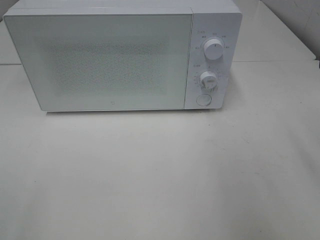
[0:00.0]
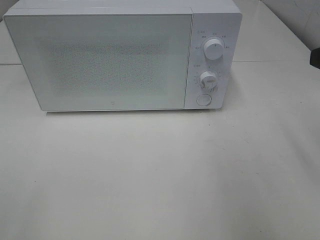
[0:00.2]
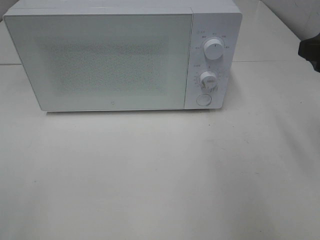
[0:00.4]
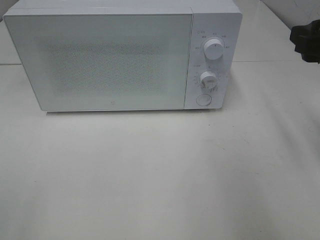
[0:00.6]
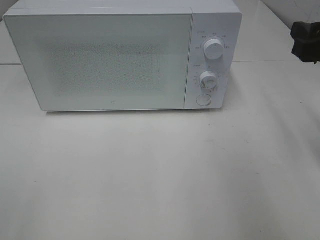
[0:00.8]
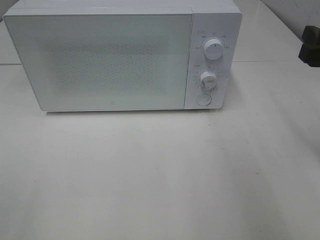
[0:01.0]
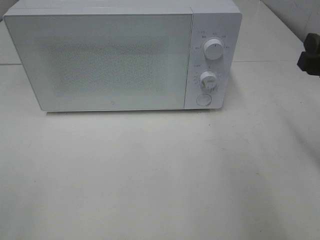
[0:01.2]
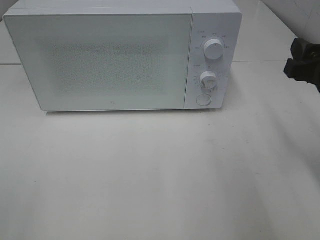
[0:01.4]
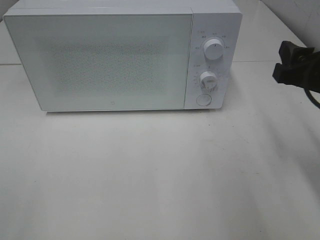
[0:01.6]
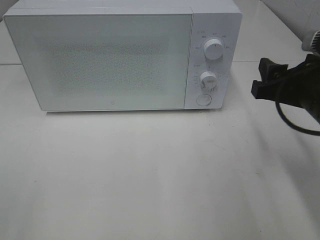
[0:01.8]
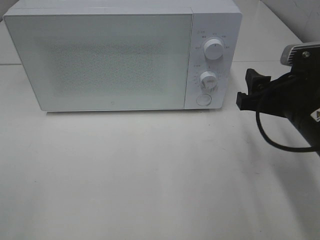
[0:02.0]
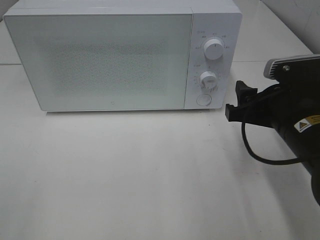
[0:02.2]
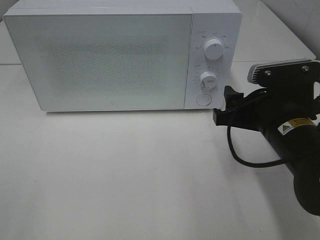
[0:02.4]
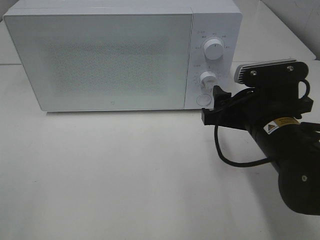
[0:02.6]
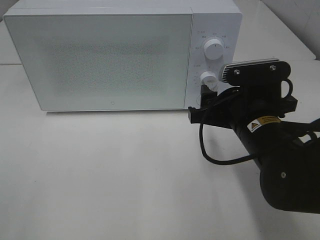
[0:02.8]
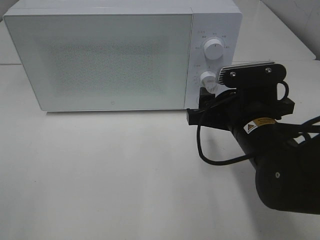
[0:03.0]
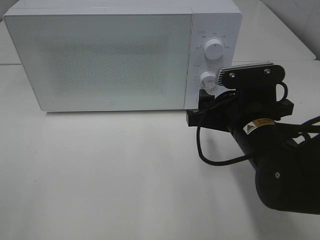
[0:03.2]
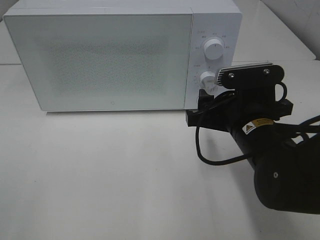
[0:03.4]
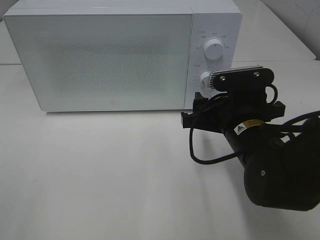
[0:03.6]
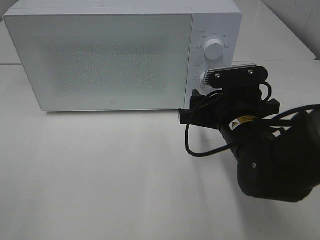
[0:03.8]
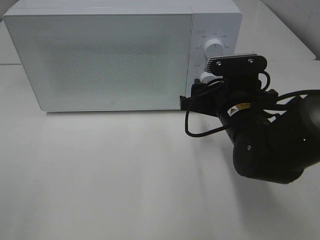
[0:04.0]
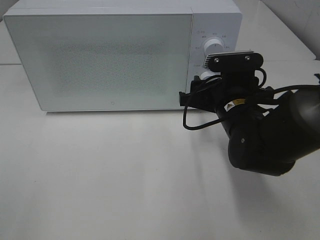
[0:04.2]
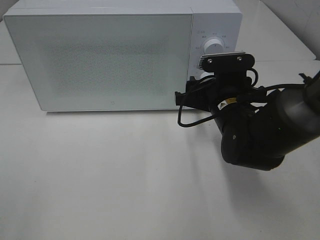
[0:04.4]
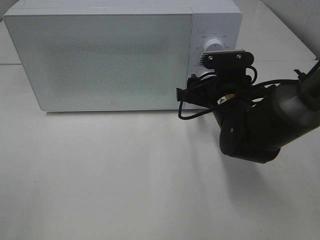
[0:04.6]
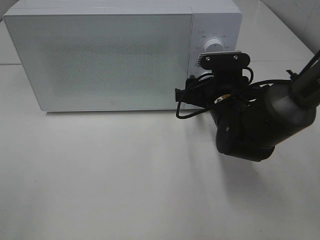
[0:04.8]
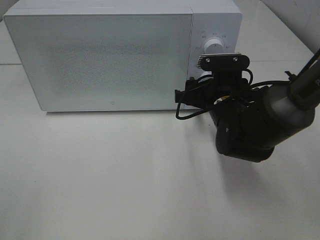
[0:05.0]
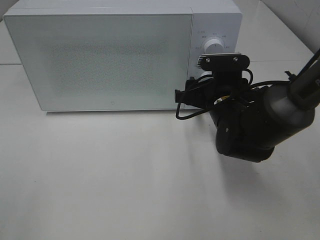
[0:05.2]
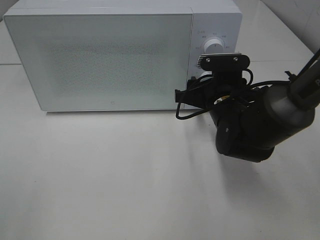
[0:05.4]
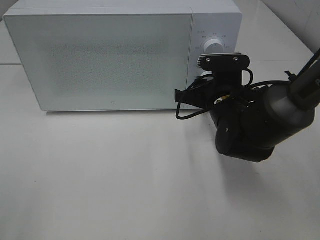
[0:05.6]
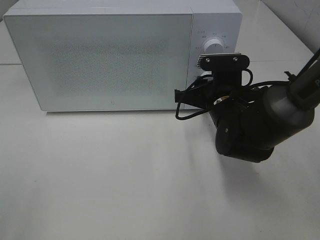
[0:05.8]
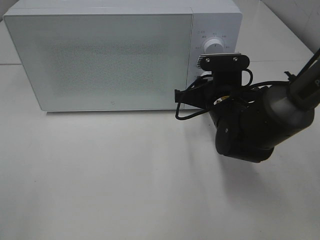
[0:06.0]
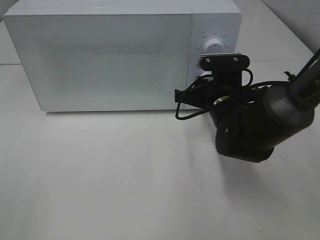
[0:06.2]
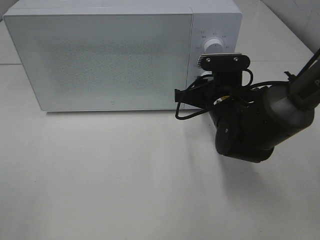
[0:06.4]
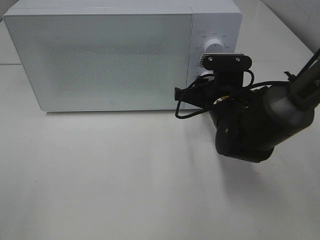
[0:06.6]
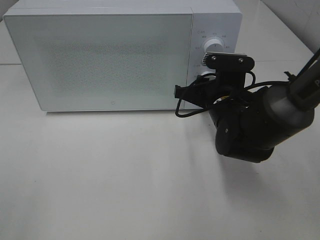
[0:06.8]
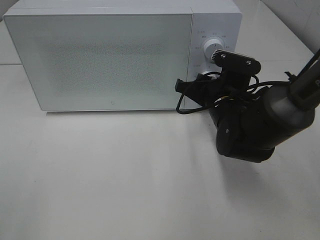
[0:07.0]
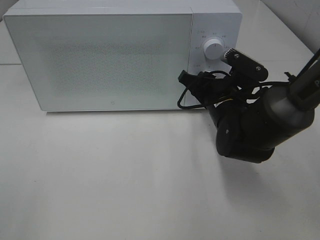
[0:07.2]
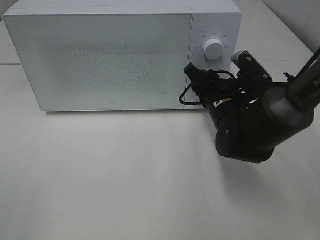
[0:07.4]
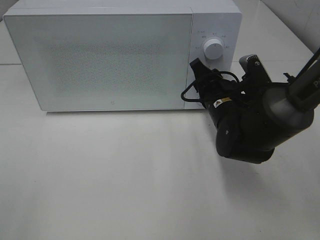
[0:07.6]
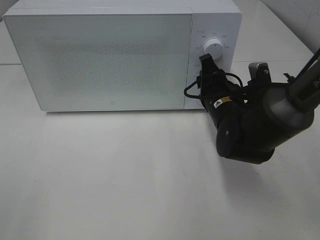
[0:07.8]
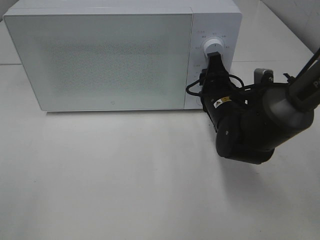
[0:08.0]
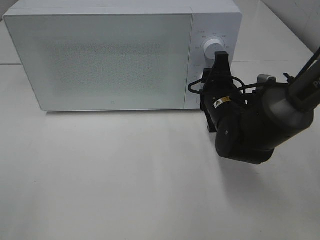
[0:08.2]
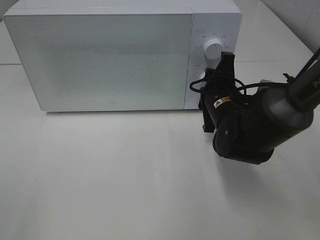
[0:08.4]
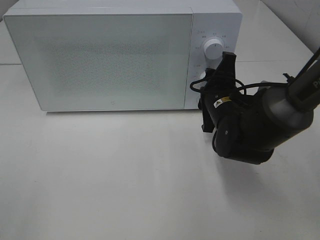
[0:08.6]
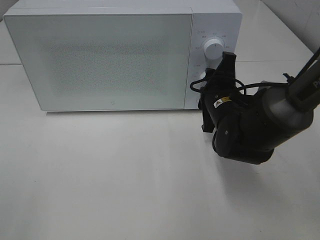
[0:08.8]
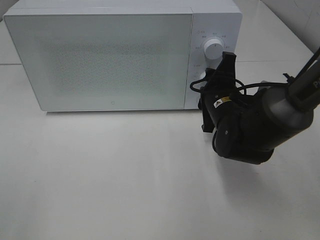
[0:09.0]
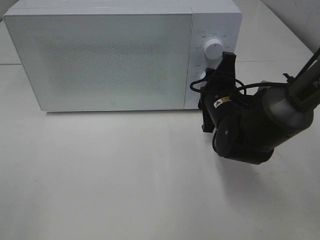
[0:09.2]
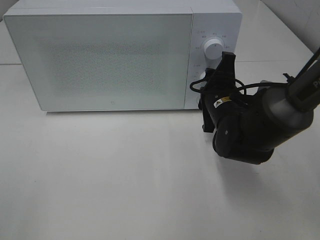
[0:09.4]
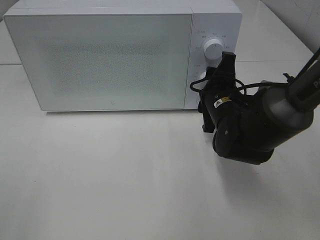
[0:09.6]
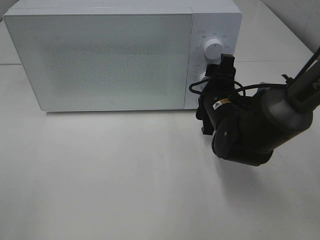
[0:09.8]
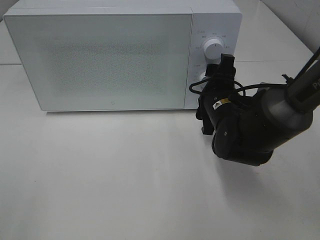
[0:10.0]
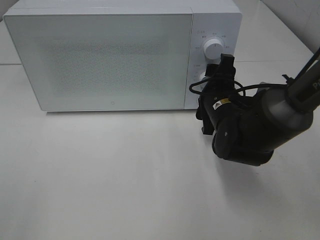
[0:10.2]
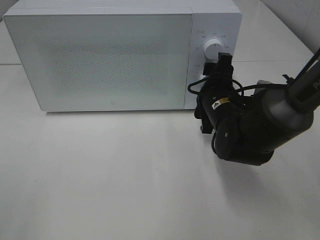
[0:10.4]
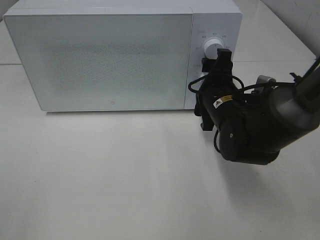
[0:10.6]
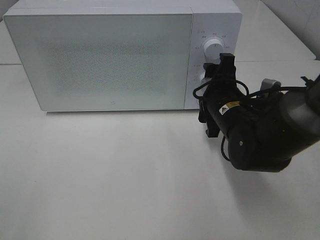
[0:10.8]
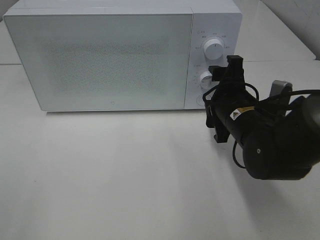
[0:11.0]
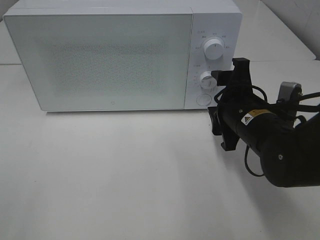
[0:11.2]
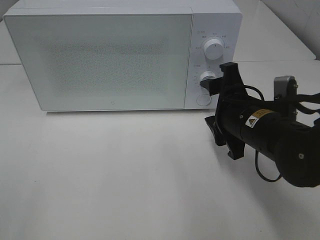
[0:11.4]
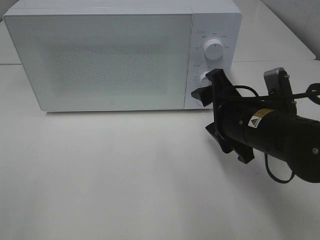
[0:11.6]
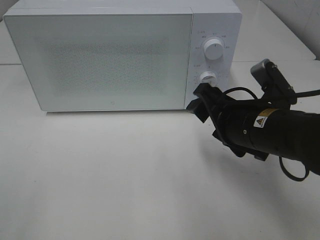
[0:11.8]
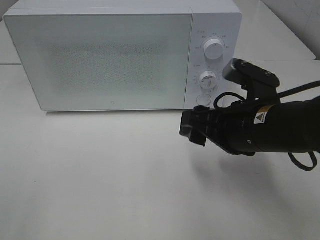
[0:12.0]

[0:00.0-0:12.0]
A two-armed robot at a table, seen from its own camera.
Task of the whole recording: Heat Sandwich.
Step, 0:00.0 to 0:11.0: Right hand: twist timer button.
0:00.0 to 0:01.6: The right gripper goes about 5 cm downward.
0:01.6 to 0:03.0: The right gripper is displaced to the left and downward by roughly 15 cm.
0:03.0 to 0:04.4: The right gripper shifts approximately 5 cm forward.
0:04.4 to 0:06.0: The grippers make only small movements.
0:09.0 to 0:10.4: Both grippers stay put.
0:10.4 to 0:12.0: The right gripper goes approximately 10 cm backward and upward.

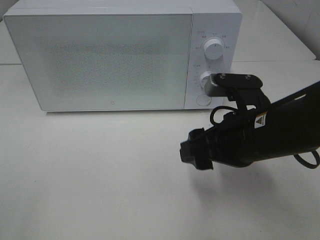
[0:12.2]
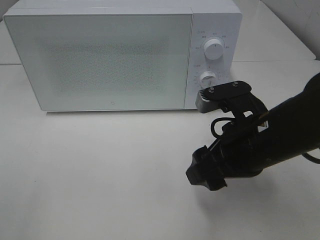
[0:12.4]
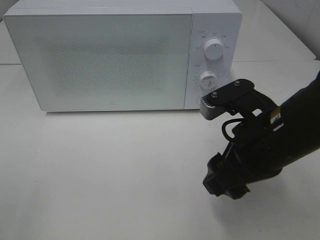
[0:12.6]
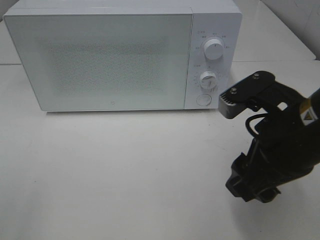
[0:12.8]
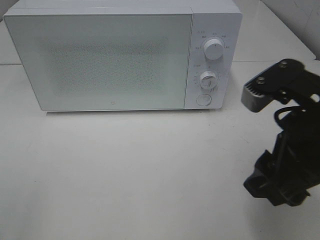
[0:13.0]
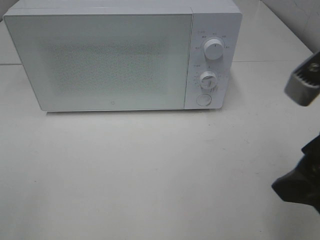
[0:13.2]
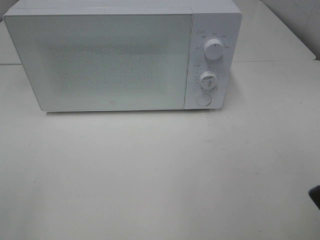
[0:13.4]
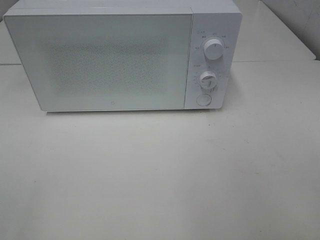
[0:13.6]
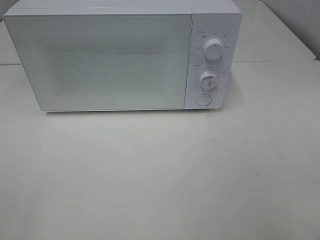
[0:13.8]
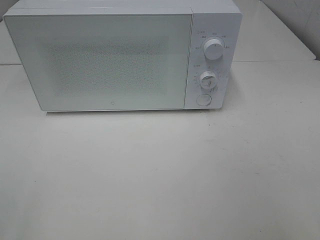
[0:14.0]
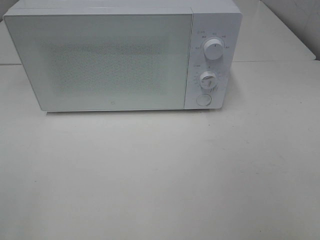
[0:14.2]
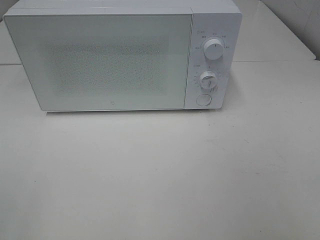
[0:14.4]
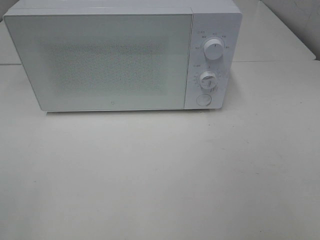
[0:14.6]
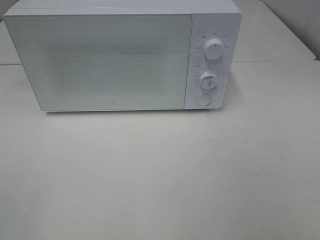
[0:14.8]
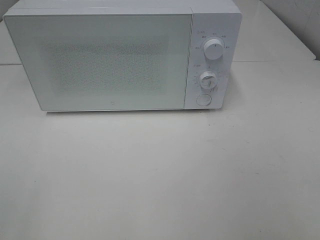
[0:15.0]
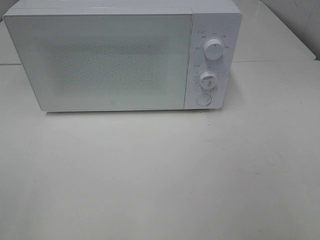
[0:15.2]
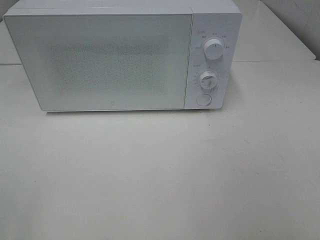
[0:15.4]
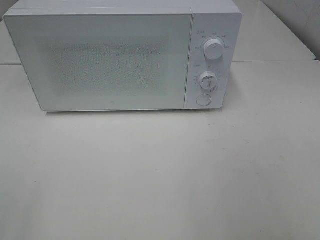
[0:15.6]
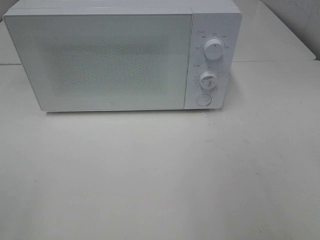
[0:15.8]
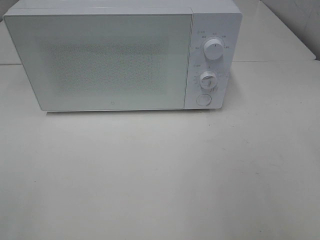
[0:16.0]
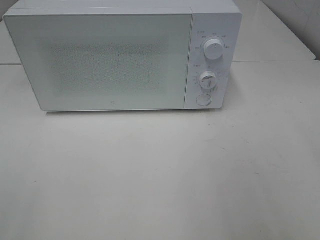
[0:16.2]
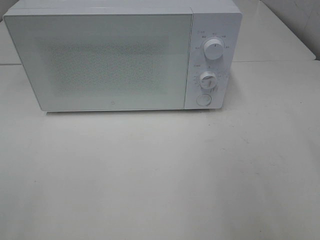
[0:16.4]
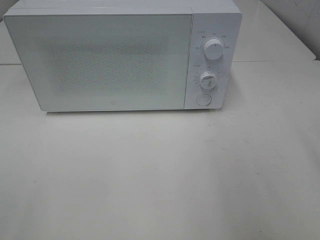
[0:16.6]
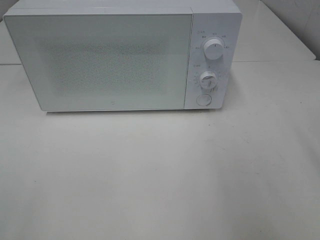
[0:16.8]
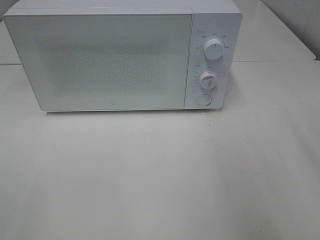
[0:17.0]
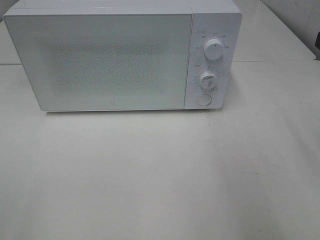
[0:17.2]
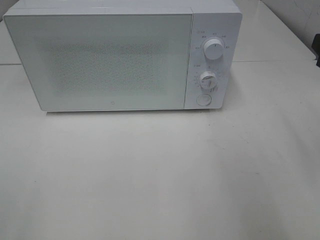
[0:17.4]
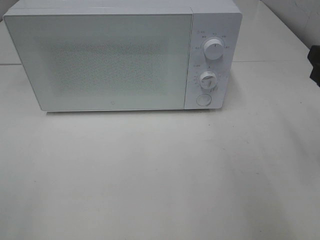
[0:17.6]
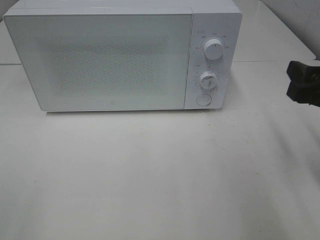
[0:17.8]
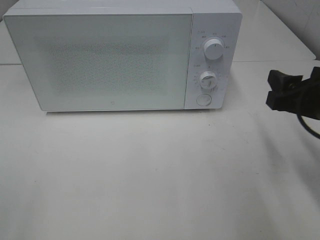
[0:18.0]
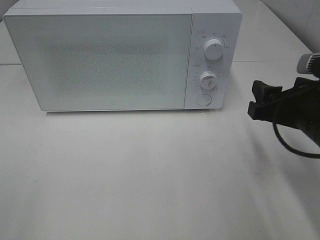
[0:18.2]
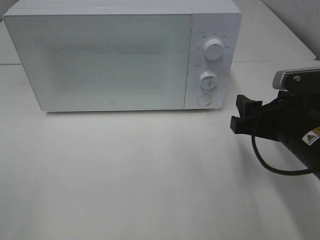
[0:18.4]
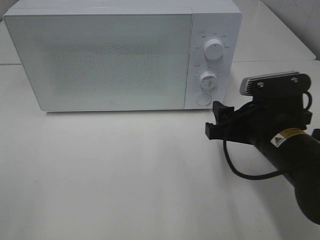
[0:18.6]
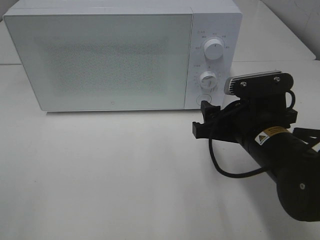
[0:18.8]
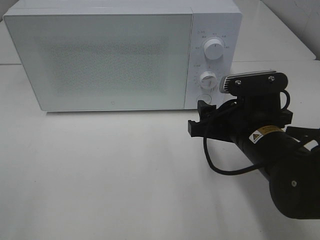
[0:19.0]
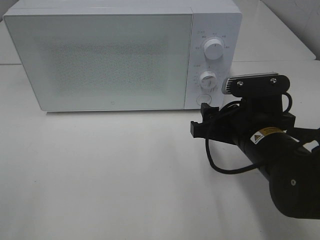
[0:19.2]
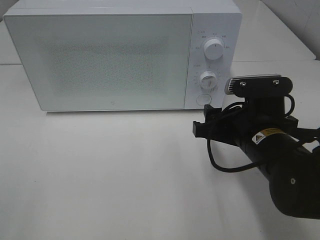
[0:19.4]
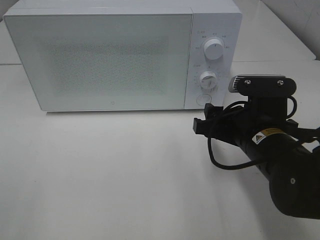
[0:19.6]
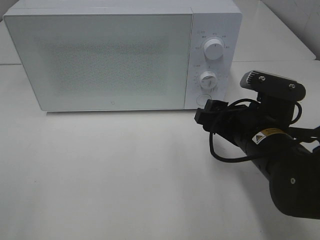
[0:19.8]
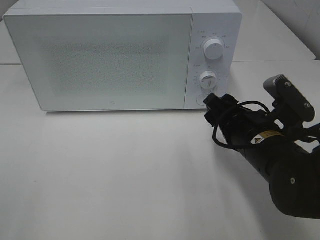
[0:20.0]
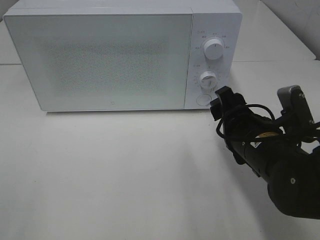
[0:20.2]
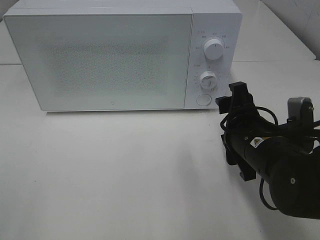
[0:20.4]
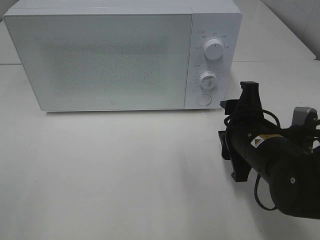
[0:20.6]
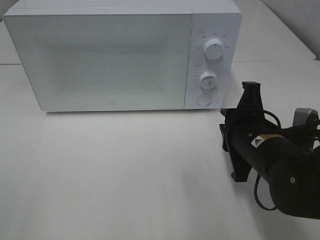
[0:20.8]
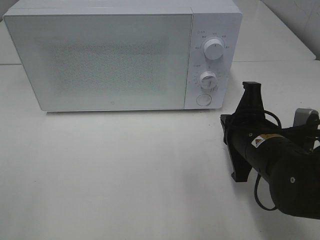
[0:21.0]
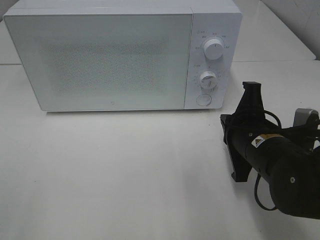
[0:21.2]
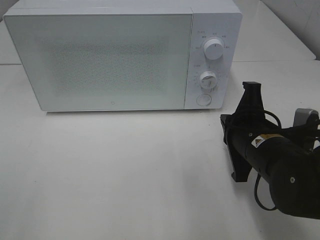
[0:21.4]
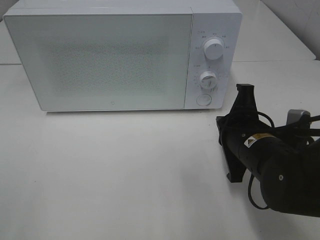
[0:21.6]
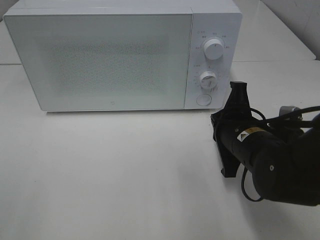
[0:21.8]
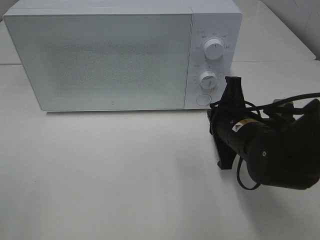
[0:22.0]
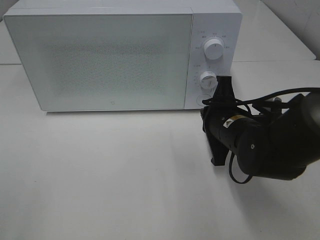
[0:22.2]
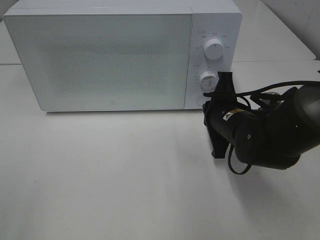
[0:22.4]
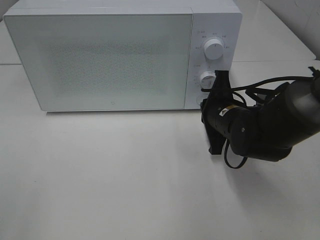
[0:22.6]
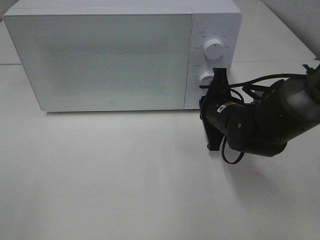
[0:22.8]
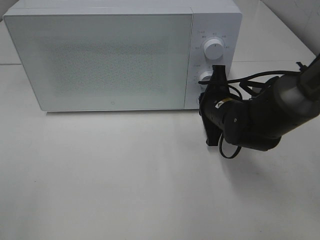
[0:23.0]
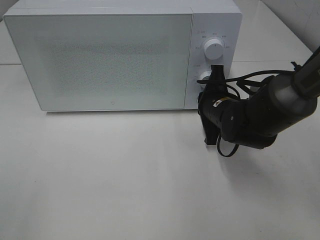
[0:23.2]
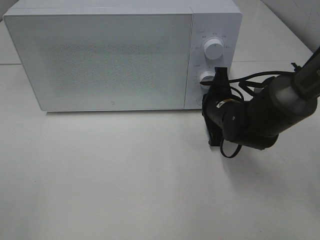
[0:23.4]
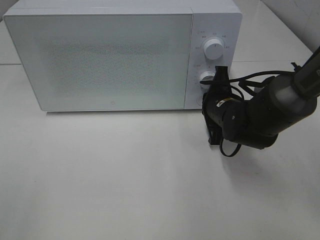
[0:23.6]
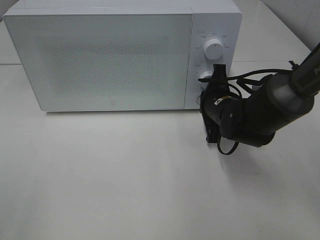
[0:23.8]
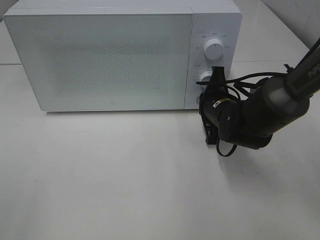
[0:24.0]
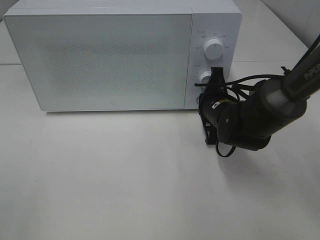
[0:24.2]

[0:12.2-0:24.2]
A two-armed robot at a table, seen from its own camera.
Task of the whole recording: Heat Sandwich.
0:12.2 to 0:13.8: The right gripper heads backward, to the right and upward, covering roughly 20 cm.
0:16.6 to 0:18.2: The right gripper shifts about 15 cm downward, forward and to the left.
0:18.2 to 0:19.8: The right gripper shifts roughly 5 cm to the left.
0:19.8 to 0:21.2: The right gripper closes up.
0:21.2 to 0:22.6: The right gripper travels forward by approximately 10 cm.
0:22.6 to 0:24.2: The grippers stay close to where they were, moving slightly.
